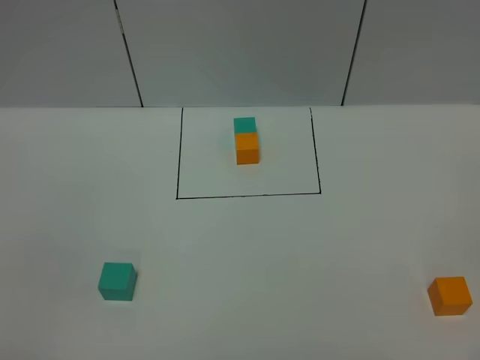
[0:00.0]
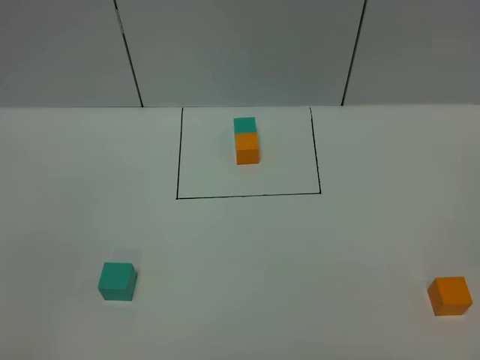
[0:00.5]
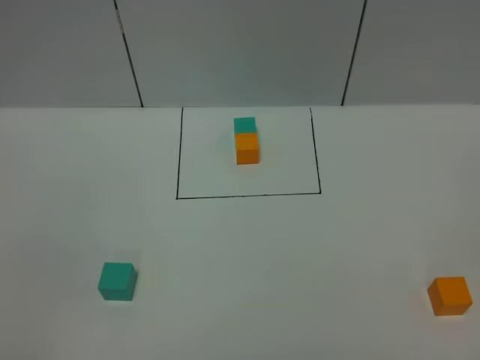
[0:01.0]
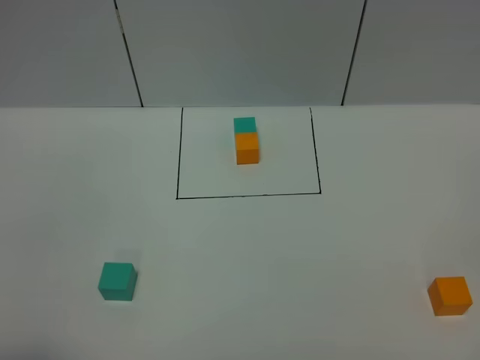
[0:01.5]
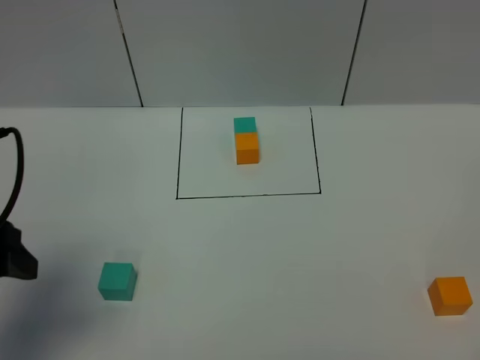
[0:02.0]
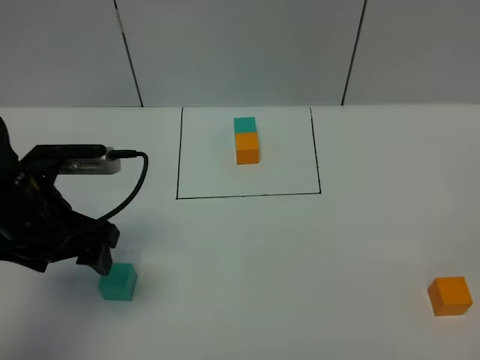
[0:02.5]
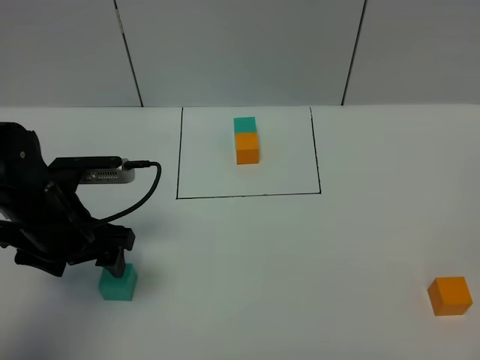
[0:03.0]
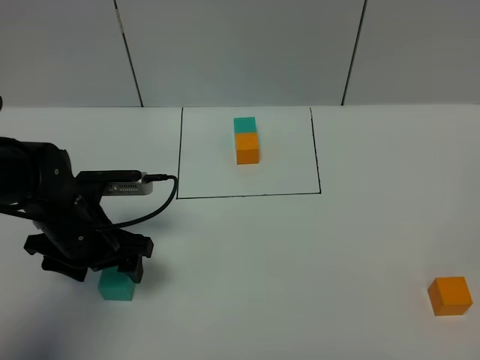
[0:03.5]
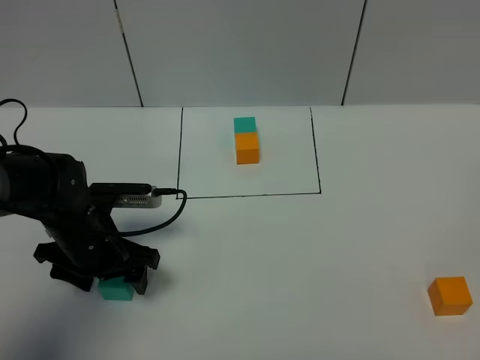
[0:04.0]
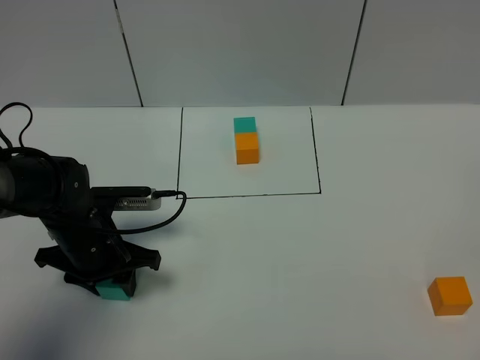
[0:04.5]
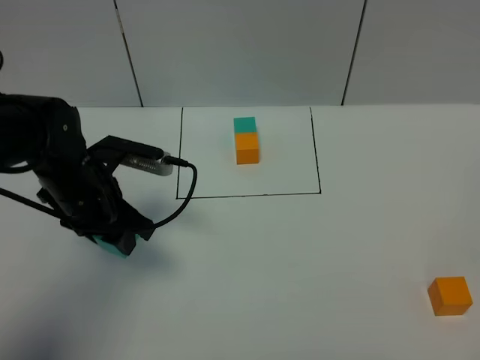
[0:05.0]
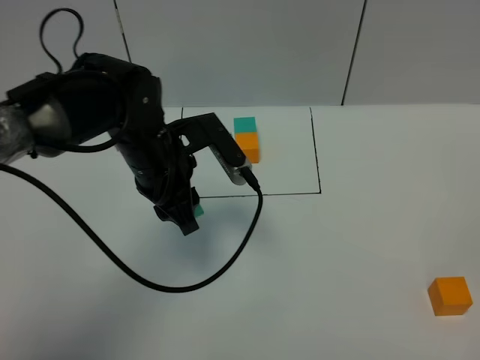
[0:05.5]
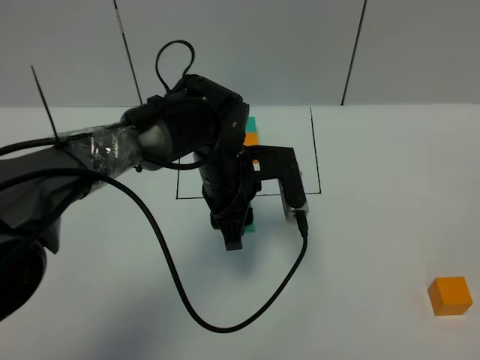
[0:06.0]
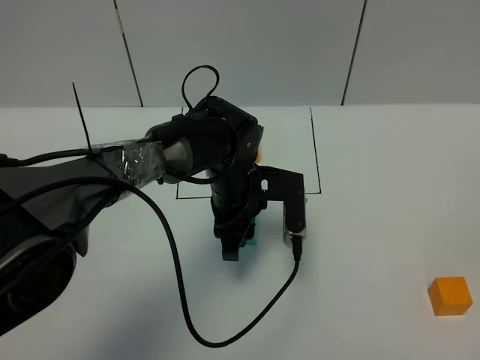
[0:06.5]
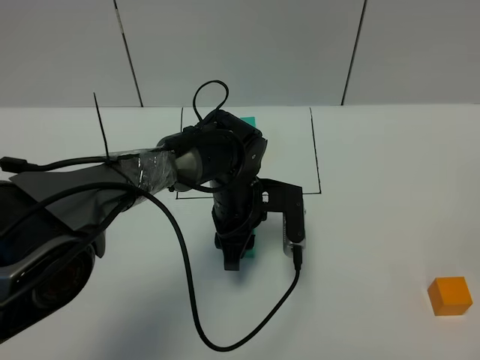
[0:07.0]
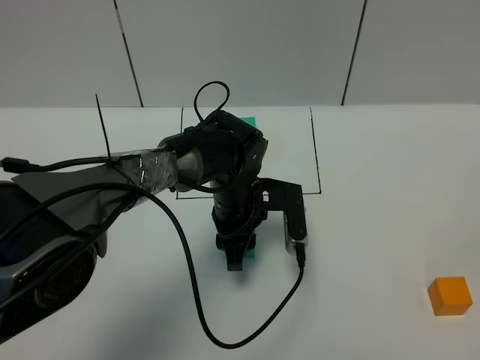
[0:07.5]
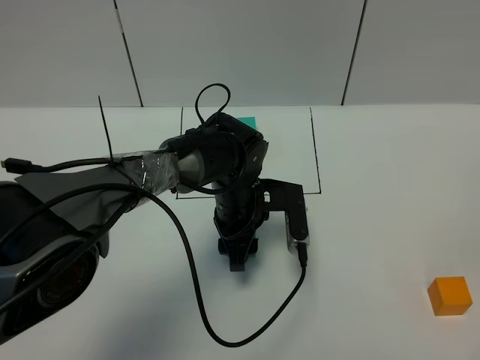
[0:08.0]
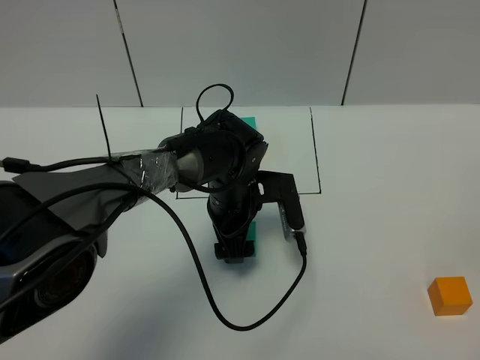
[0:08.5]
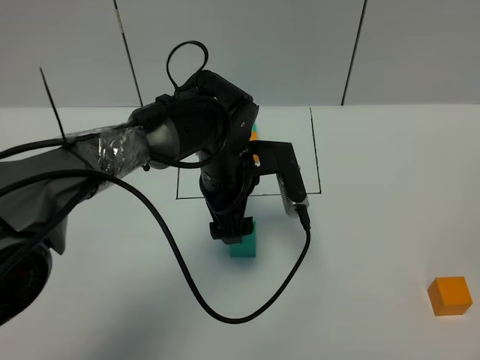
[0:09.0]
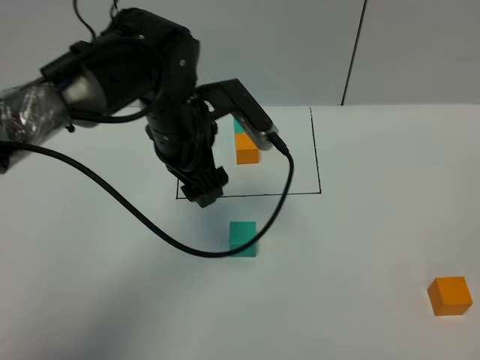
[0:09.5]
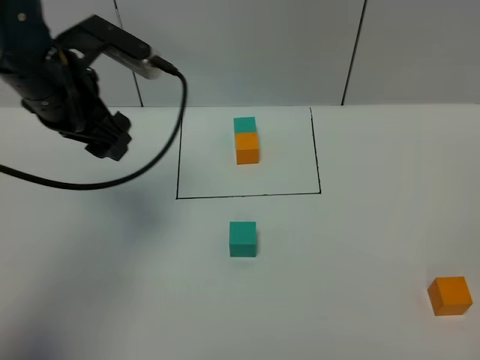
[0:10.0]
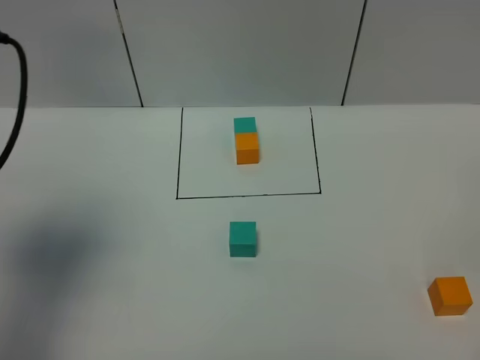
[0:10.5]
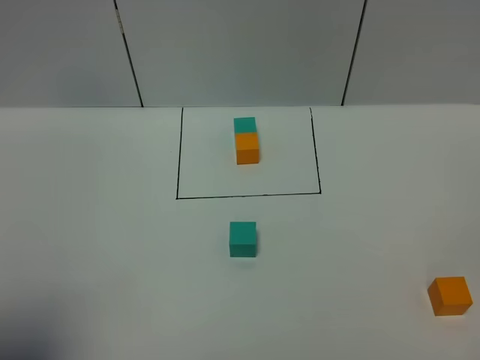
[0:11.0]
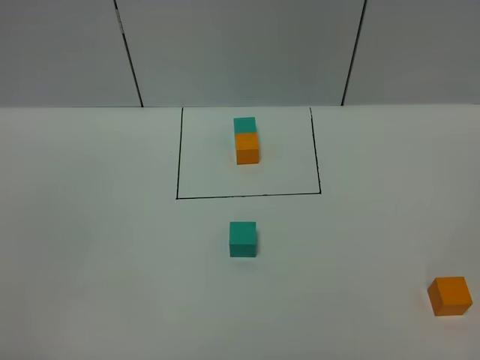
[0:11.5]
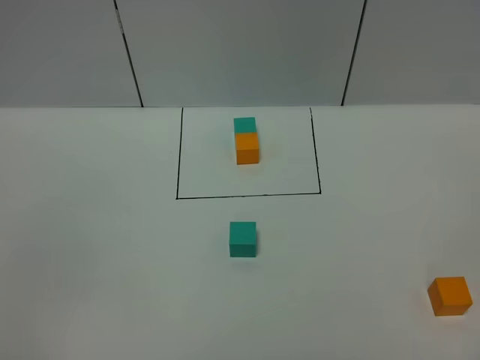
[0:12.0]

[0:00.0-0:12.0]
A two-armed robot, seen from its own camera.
Task of the whole recording: According to the building block template in front, assemble the scattered blocks together.
Step, 0:02.0 to 0:08.5: Put the green cube in the center of the table.
0:00.0 to 0:02.0: The left gripper heads forward, covering approximately 20 cm.
0:02.0 to 0:04.0: The left gripper heads downward, forward and to the right, covering some 20 cm.
0:04.0 to 0:06.0: The left gripper goes about 20 cm to the right, and closes its fingers.
0:06.0 to 0:08.0: The left gripper goes about 5 cm downward, and opens up.
0:08.0 to 0:10.0: The left gripper shifts roughly 30 cm to the left and upward, and opens.
0:10.0 to 0:12.0: The left gripper heads backward, covering approximately 40 cm.

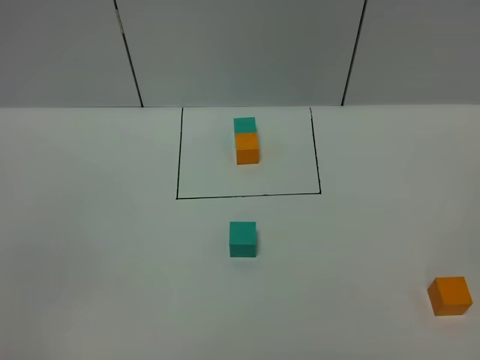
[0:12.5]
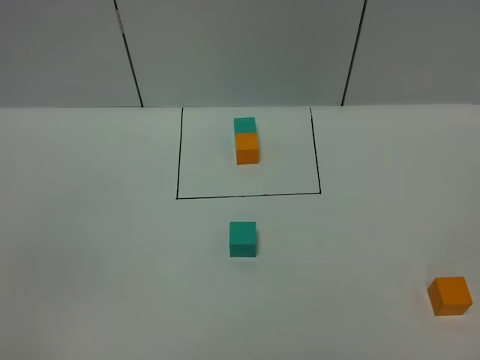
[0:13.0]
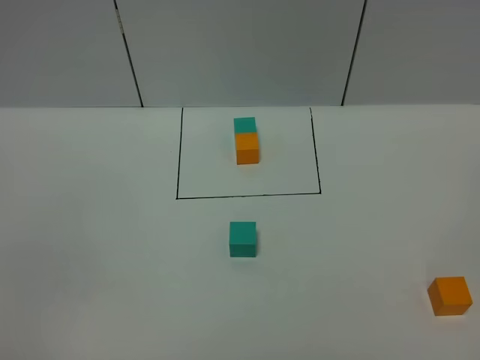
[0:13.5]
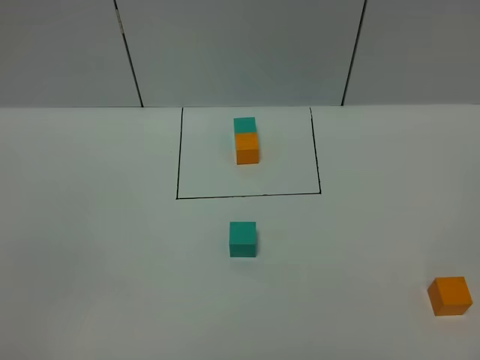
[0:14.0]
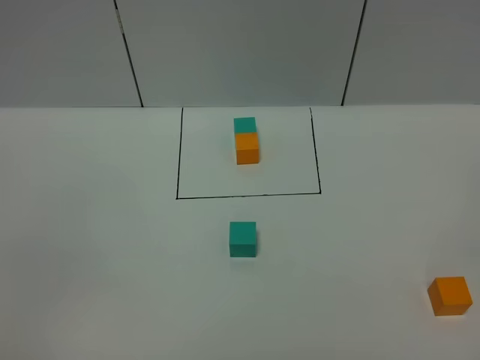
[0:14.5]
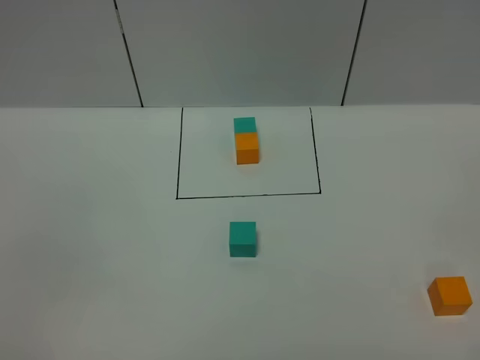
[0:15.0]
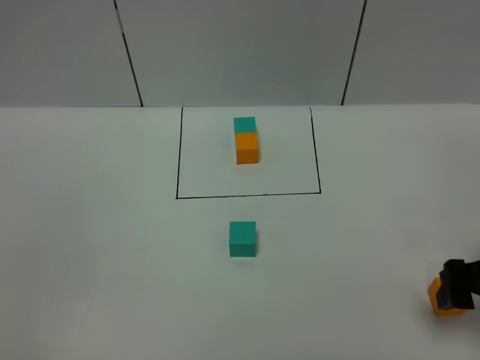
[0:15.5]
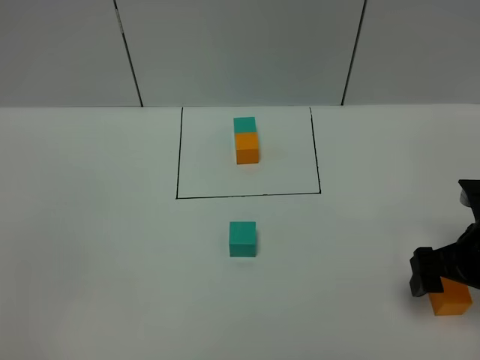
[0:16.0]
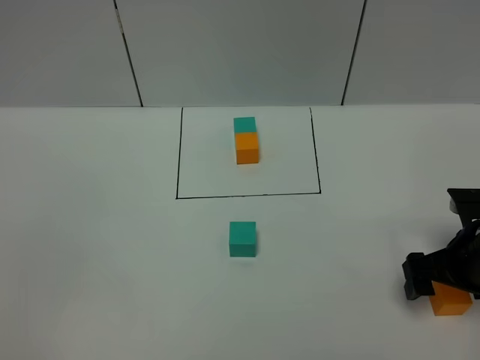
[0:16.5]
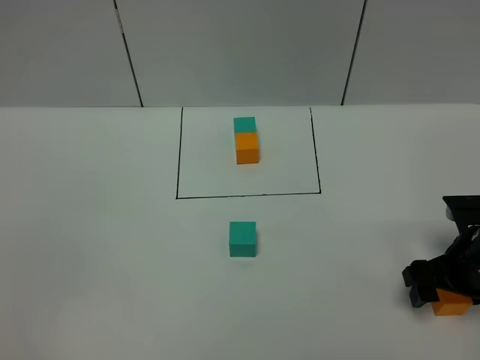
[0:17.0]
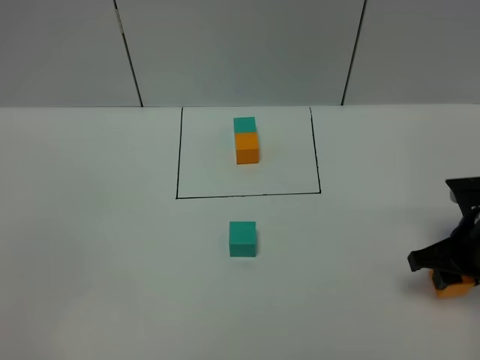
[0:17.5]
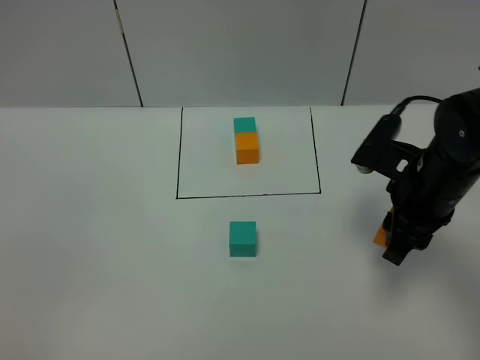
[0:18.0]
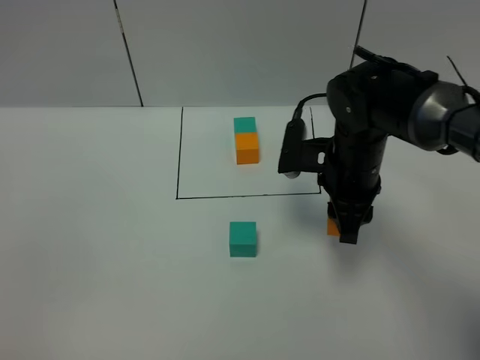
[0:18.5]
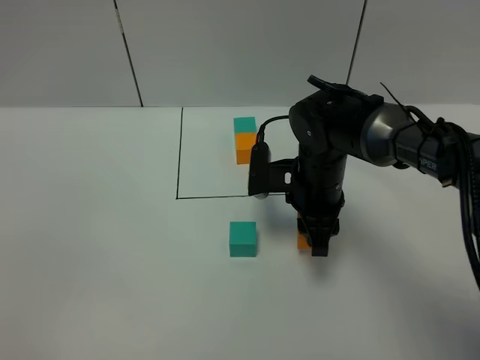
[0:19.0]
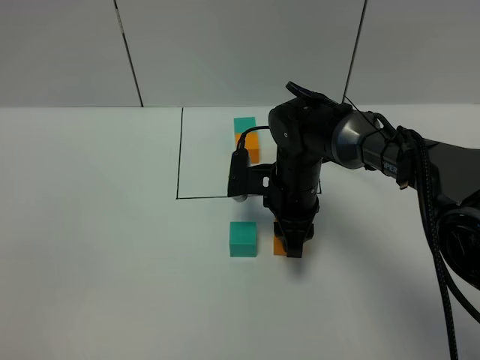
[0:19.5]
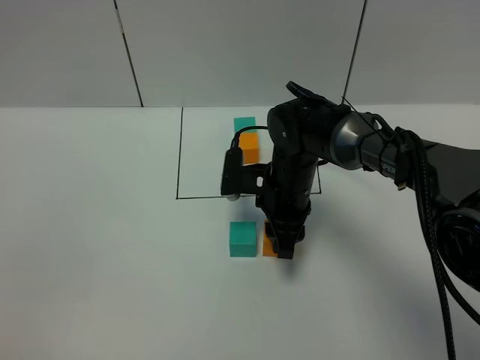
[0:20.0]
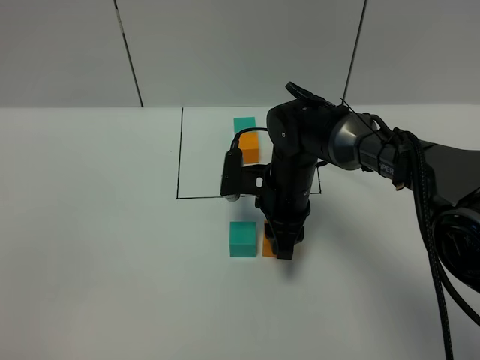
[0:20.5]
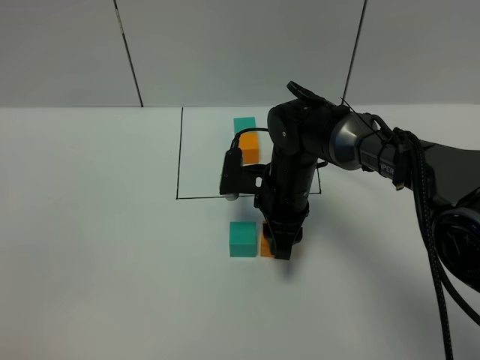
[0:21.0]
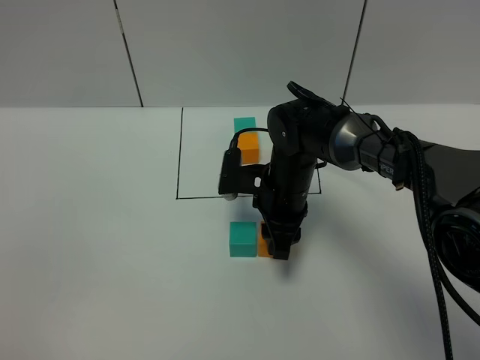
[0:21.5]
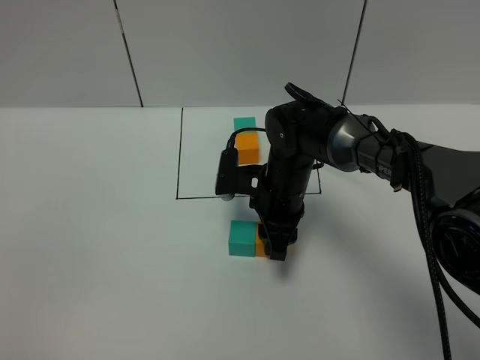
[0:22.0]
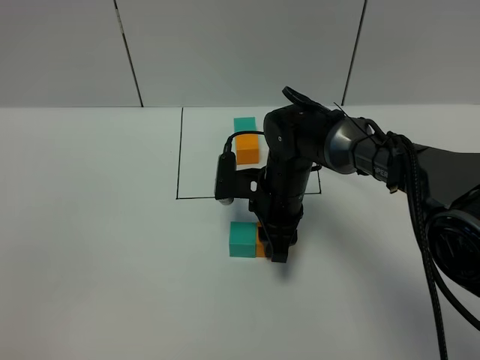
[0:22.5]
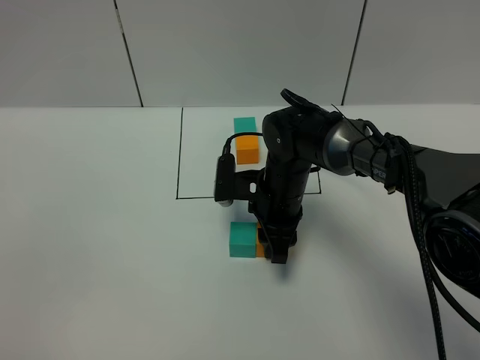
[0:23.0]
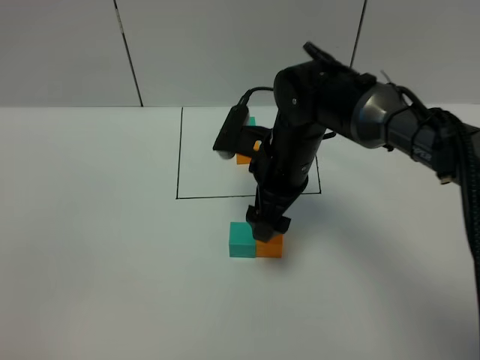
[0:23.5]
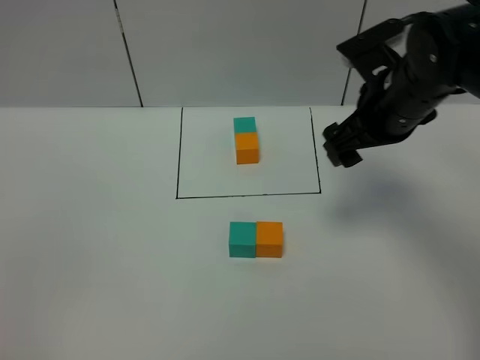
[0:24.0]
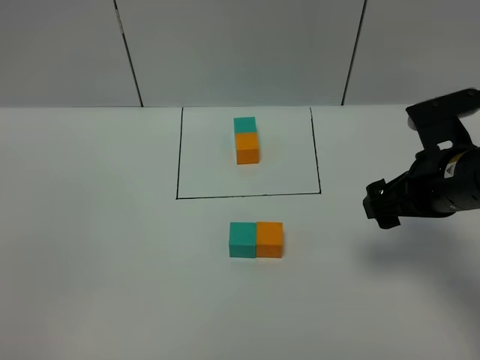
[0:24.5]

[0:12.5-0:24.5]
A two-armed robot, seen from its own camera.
Task of the whole recording: According to the building block template in front, assemble the scattered blocks together.
Step, 0:12.5 to 0:23.0: Put the orange cube on the right of the green cube.
0:12.5 to 0:14.5: The two grippers keep their place.
0:14.5 to 0:16.5: The right gripper goes about 30 cm forward and downward.
0:16.5 to 0:18.5: The right gripper travels to the left and forward by approximately 20 cm, and closes up.
0:18.5 to 0:20.5: The right gripper shifts some 10 cm downward and to the left.
0:20.5 to 0:22.5: Neither gripper changes place.
0:22.5 to 0:24.5: The right gripper goes approximately 25 cm to the right, upward and backward, and opens its fingers.

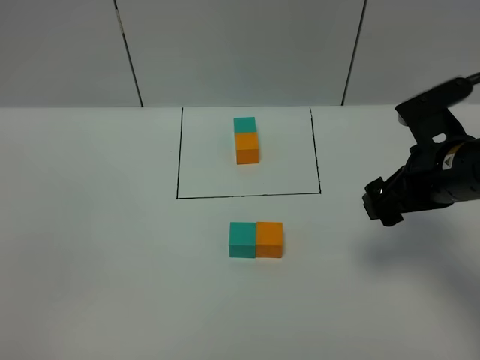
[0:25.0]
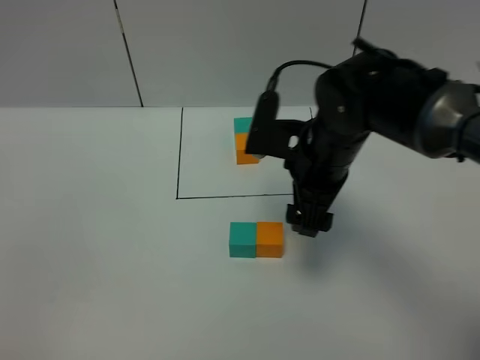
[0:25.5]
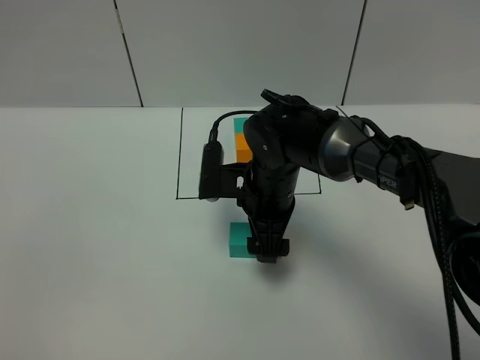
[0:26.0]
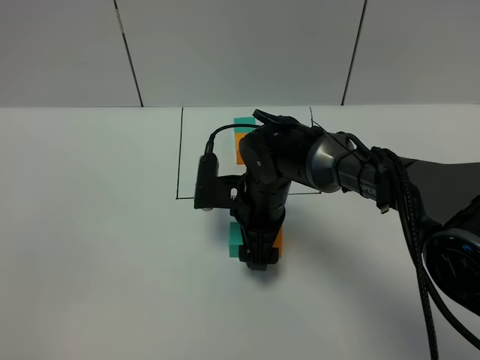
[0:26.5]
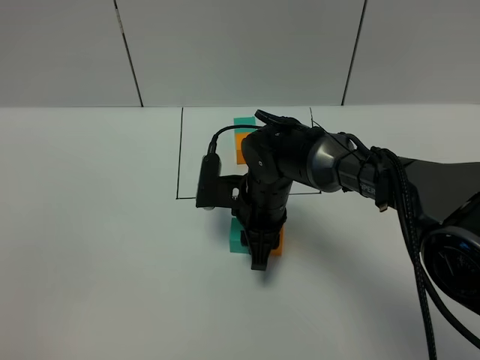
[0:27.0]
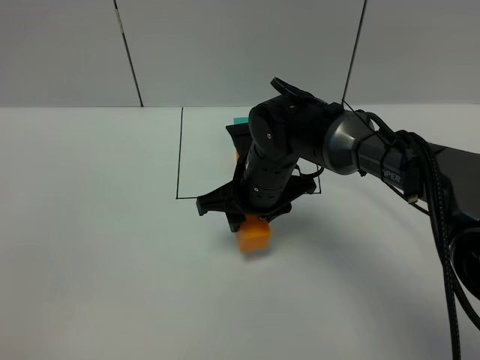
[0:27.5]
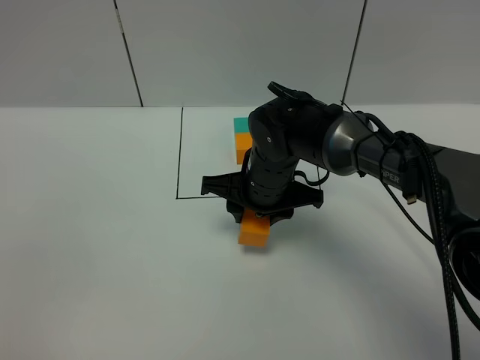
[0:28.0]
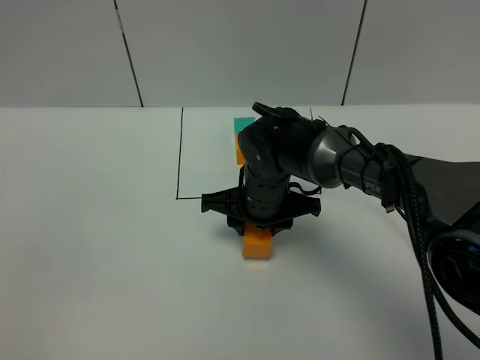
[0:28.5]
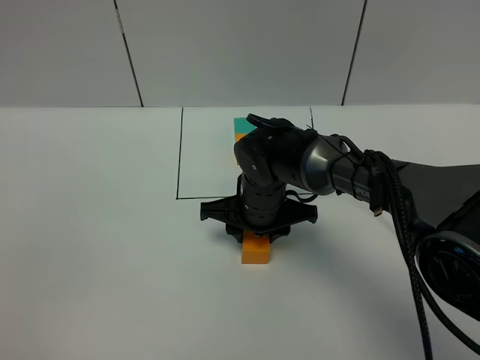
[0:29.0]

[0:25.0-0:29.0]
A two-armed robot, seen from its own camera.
Task of the whole recording: According to the building block template in front, assemble the scattered blocks together.
0:25.0 to 0:27.0: The right gripper shifts about 20 cm to the left and downward, and closes up.
